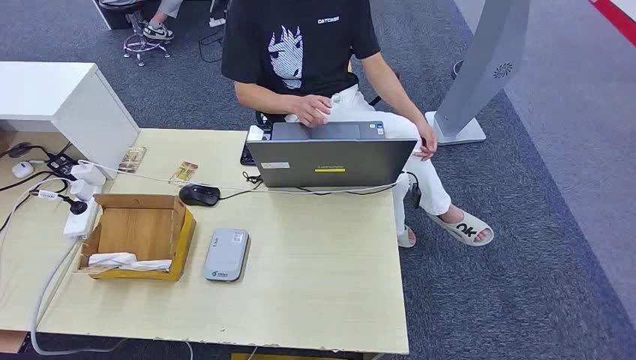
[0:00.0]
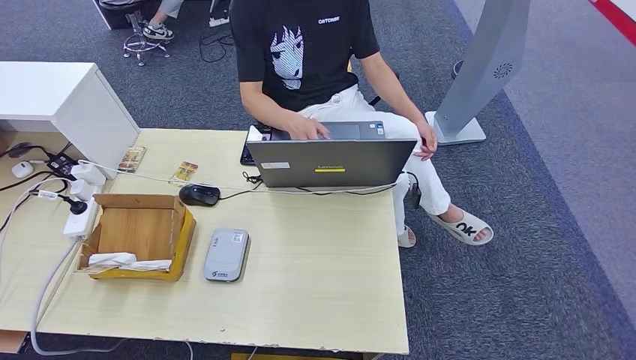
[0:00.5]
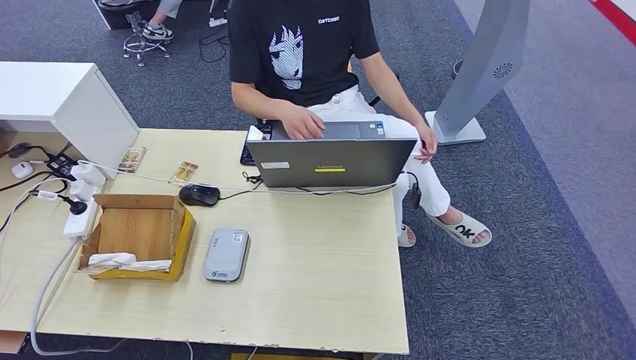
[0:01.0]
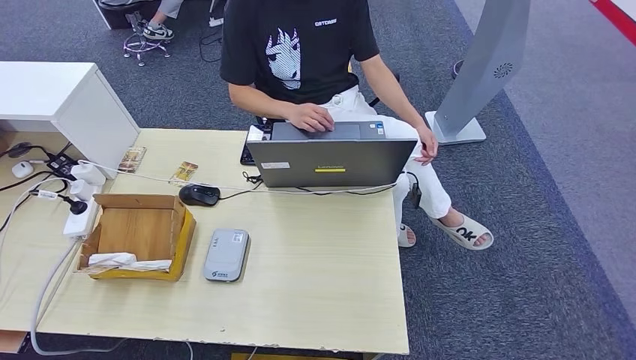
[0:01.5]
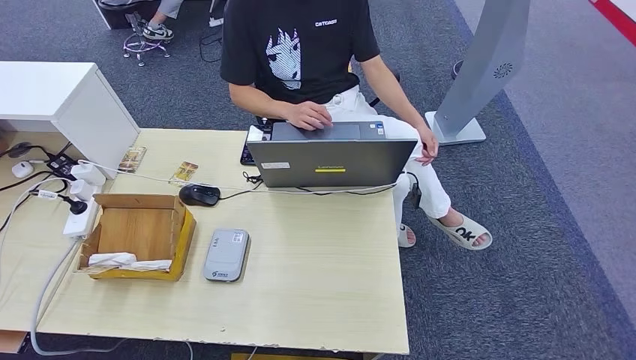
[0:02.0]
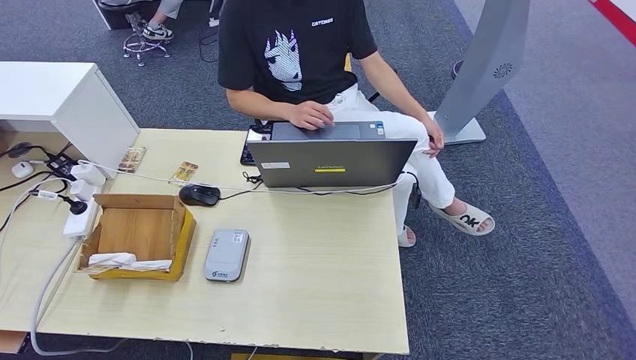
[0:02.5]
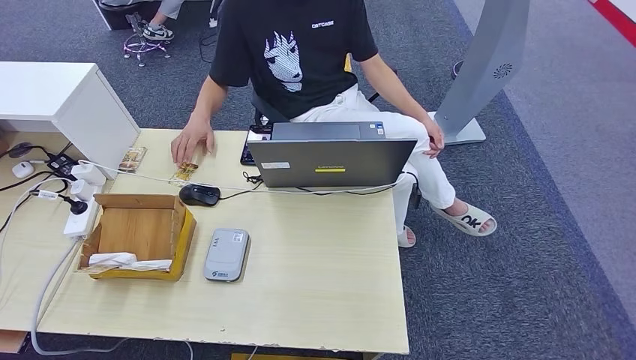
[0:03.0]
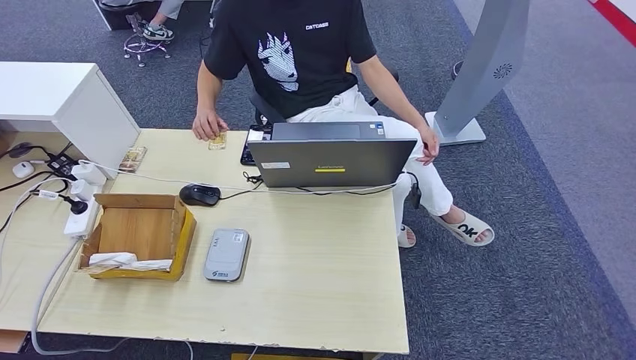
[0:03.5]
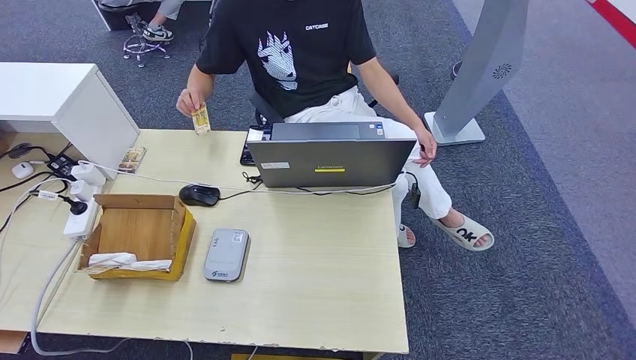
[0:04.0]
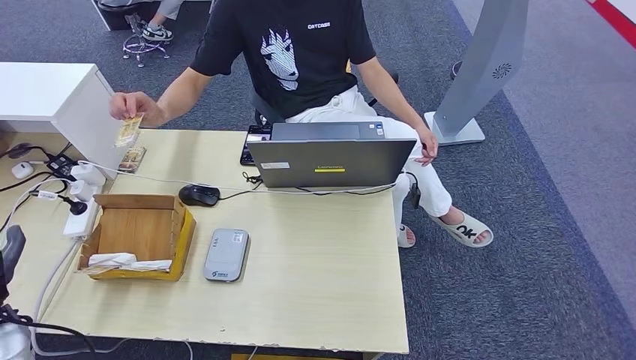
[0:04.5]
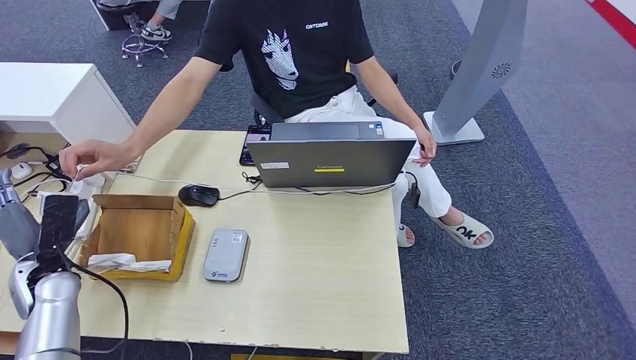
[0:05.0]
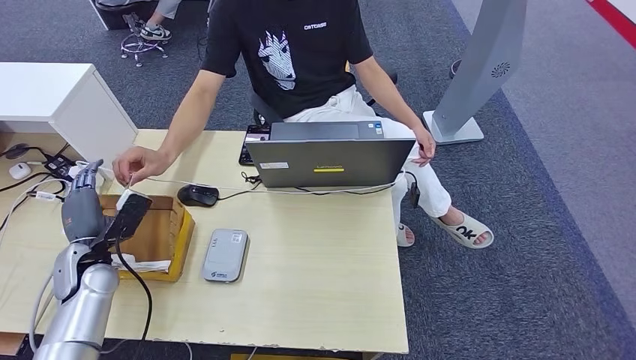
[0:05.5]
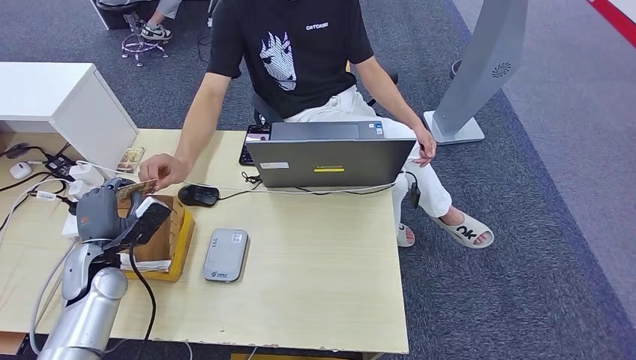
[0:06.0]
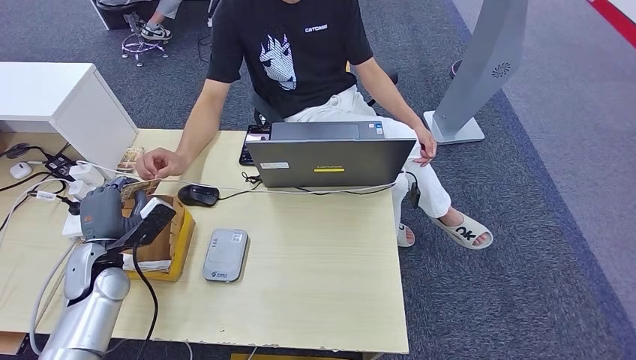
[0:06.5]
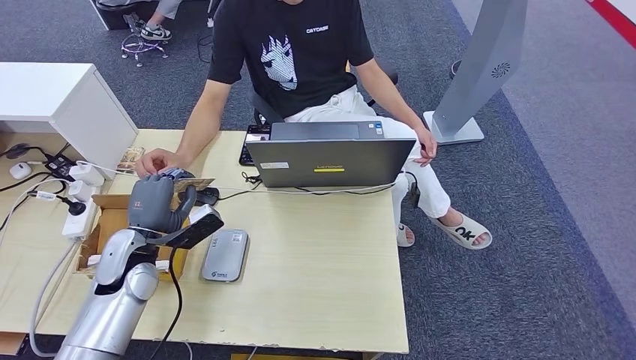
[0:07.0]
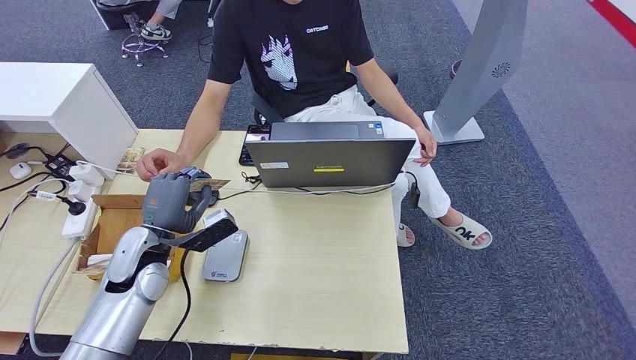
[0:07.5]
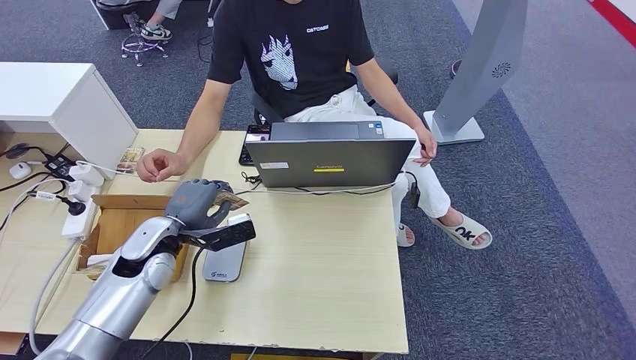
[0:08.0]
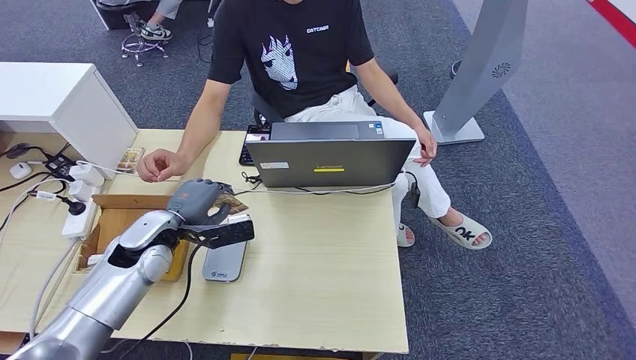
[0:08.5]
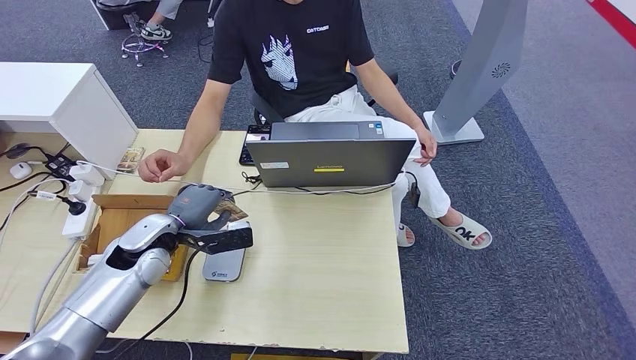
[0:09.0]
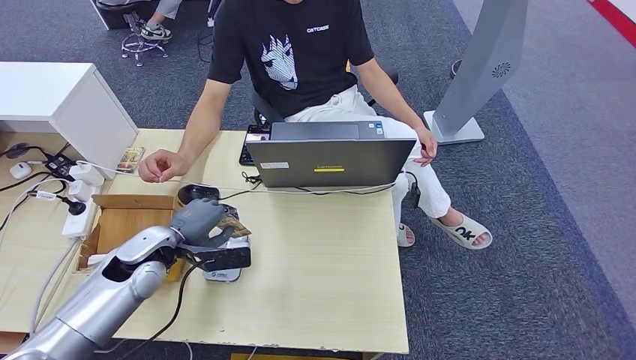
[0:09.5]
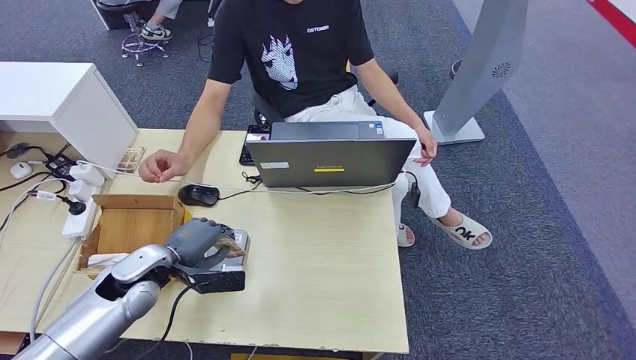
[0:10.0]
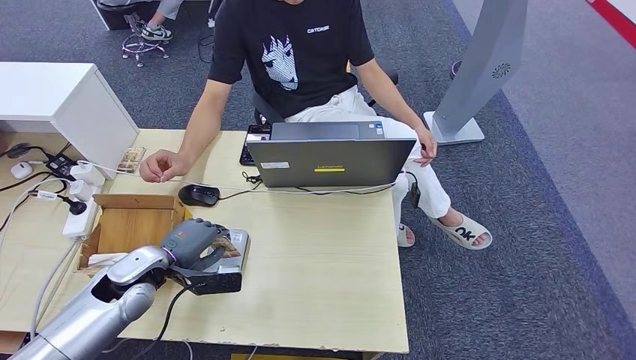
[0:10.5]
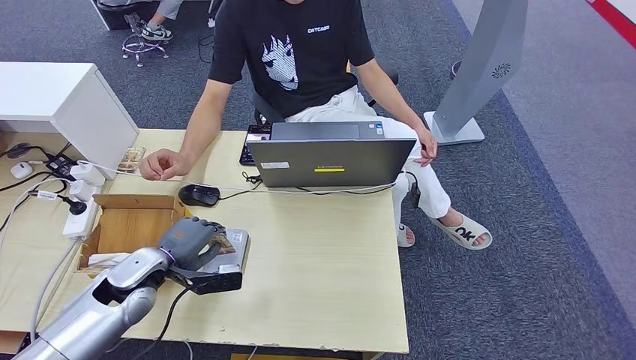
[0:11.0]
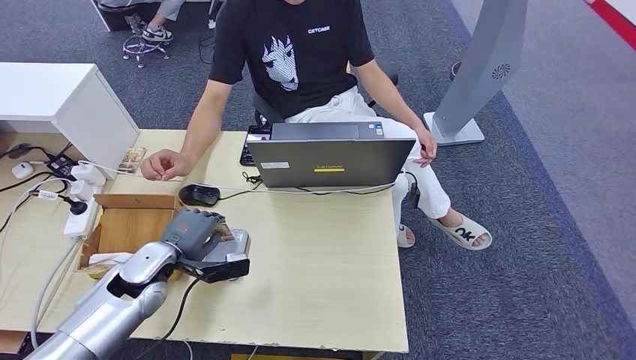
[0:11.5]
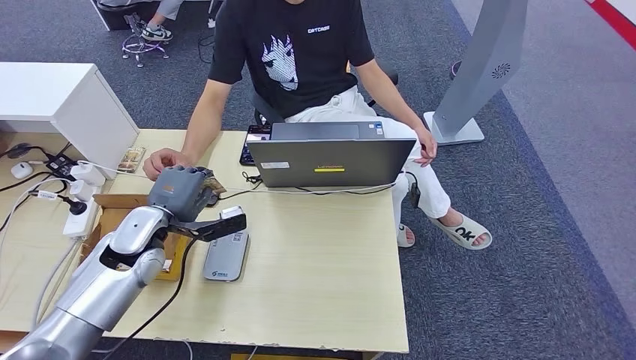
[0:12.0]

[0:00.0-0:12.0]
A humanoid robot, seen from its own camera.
Step, 0:00.0 to 0:05.5: Take the ID card from the person's hand.
Step, 0:06.0 to 0:11.0: Place the ID card on the card reader.
0:02.0 to 0:04.0: The left hand moves upward and forward, approximately 25 cm.
0:04.0 to 0:06.0: The left hand moves forward, about 20 cm.
0:06.0 to 0:08.0: The left hand shifts about 10 cm to the right.
0:08.0 to 0:10.0: The left hand ends up some 5 cm from where it was.
0:10.0 to 0:12.0: The left hand changes place by about 5 cm.

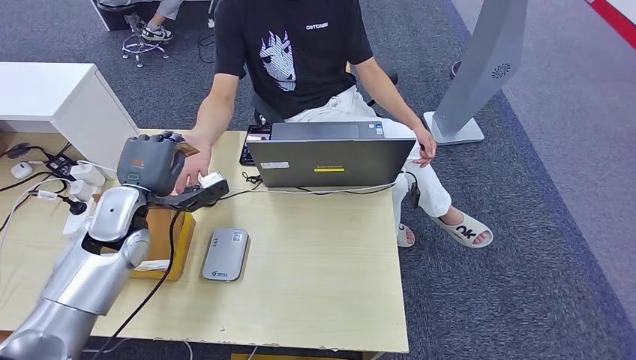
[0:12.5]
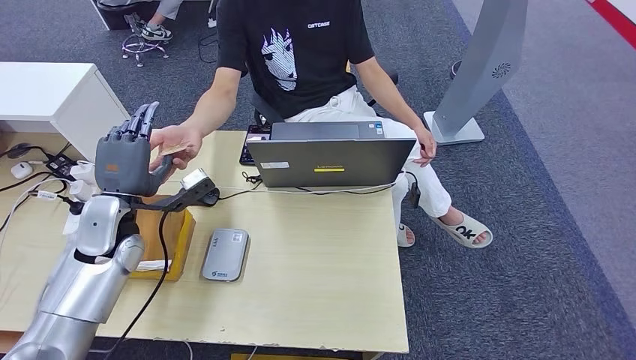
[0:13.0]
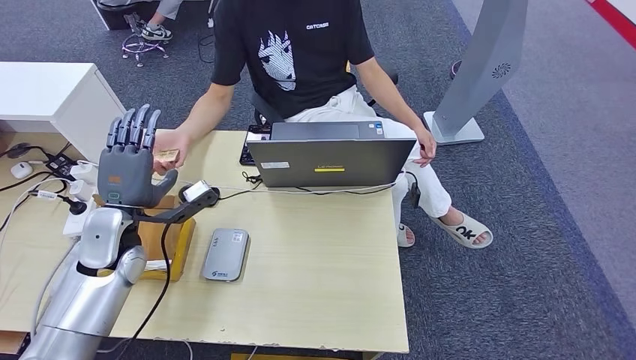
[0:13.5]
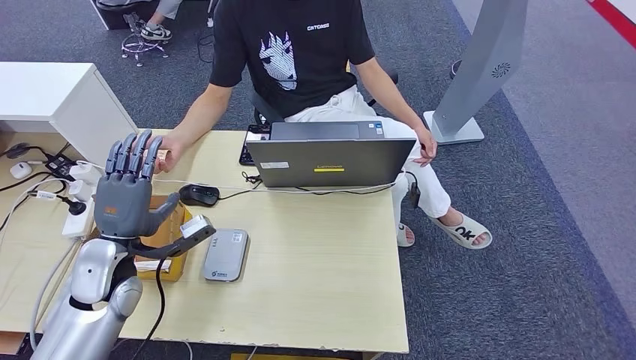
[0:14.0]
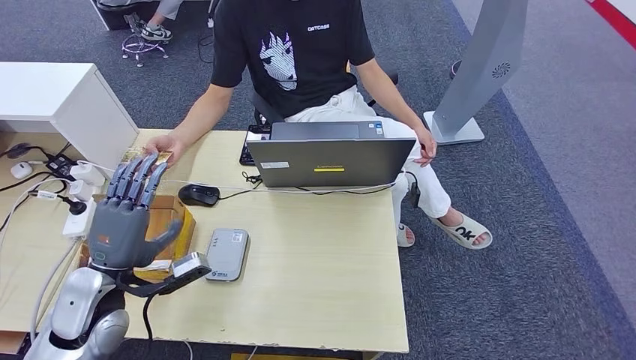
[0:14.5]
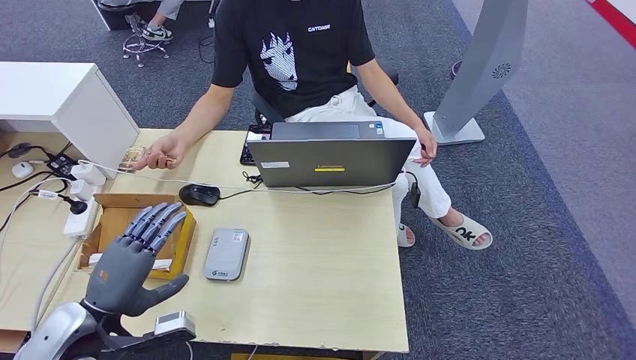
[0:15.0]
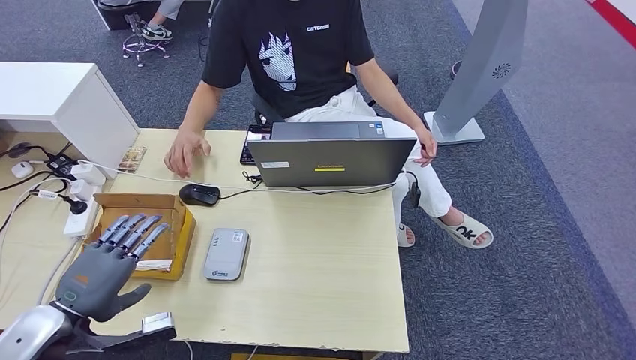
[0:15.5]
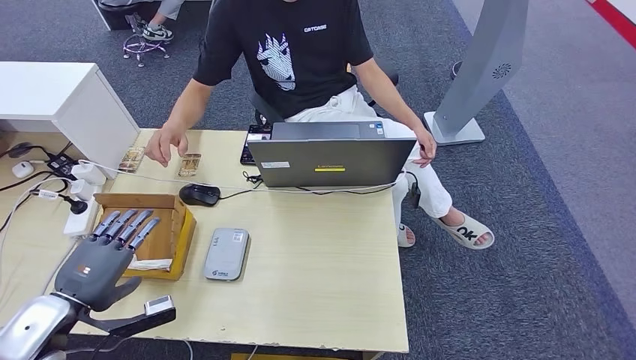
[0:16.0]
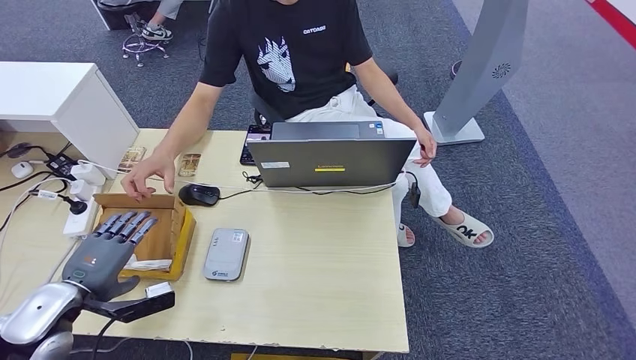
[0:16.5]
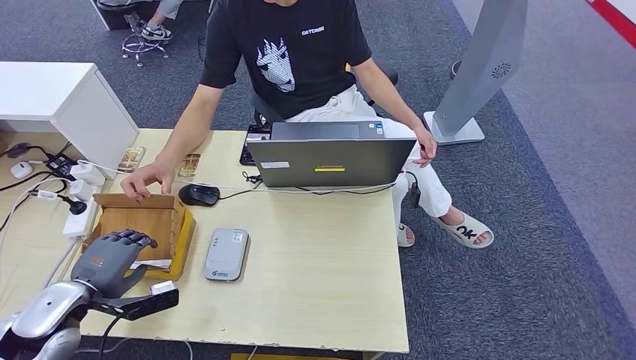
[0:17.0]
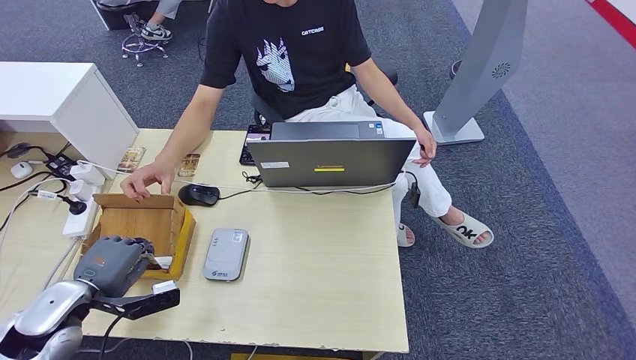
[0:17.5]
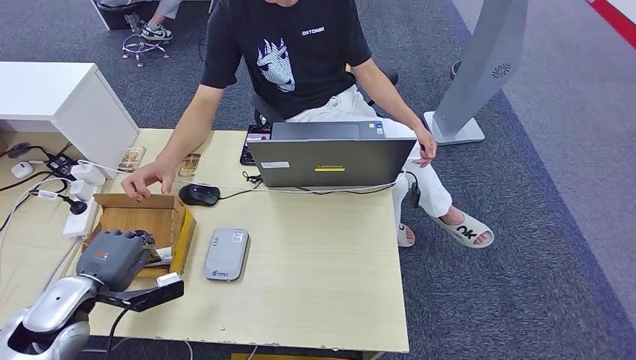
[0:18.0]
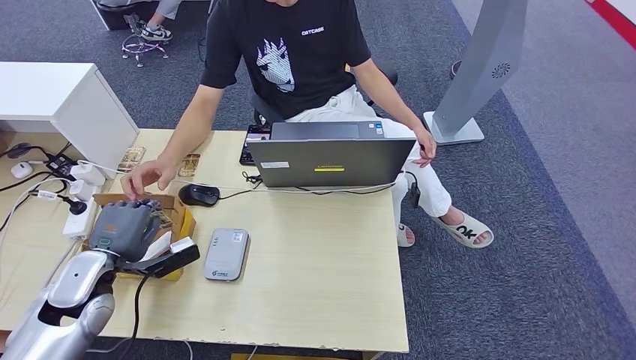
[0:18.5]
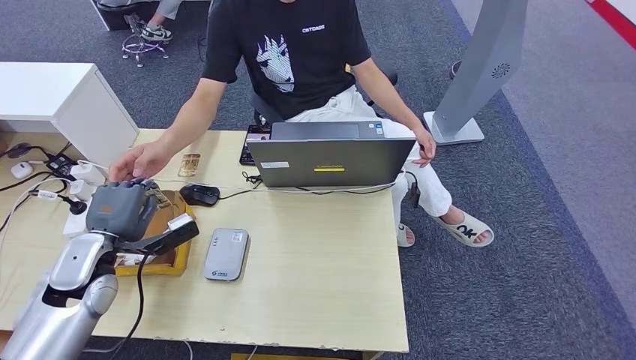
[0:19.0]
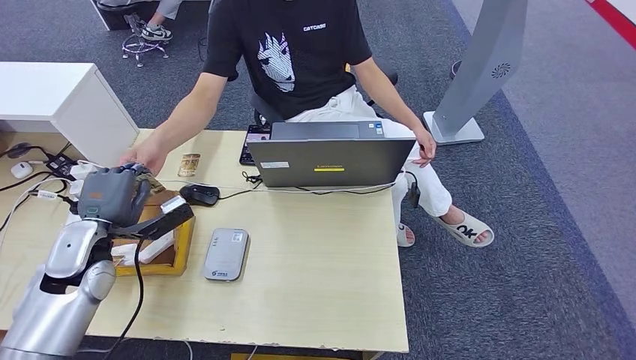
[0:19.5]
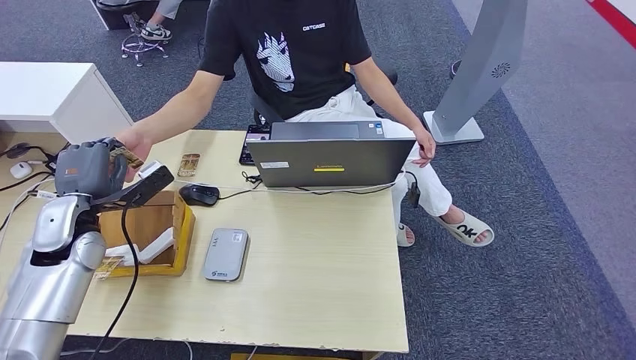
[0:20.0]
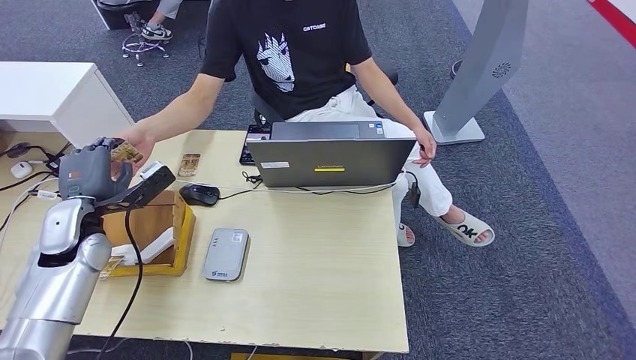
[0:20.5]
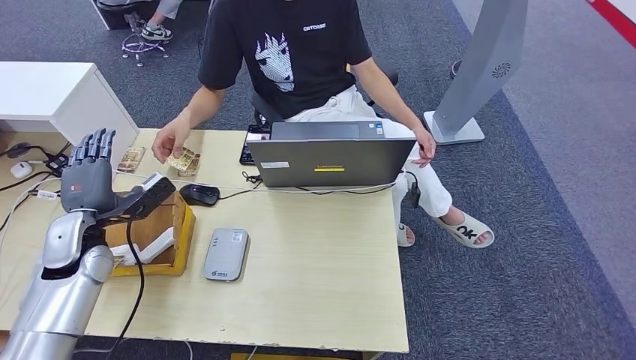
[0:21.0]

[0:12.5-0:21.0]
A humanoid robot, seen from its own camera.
Step, 0:14.0 to 0:18.0: Pick up the room key from the key card box.
Step, 0:19.0 to 0:21.0: Hand the room key to the person.
0:12.5 to 0:14.5: The left hand moves backward, some 10 cm.
0:14.5 to 0:16.5: The left hand shifts some 10 cm to the left.
0:16.5 to 0:19.0: The left hand travels forward by about 10 cm.
